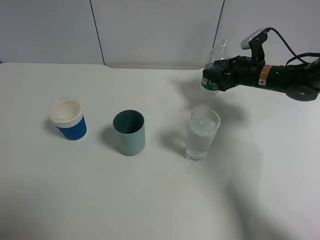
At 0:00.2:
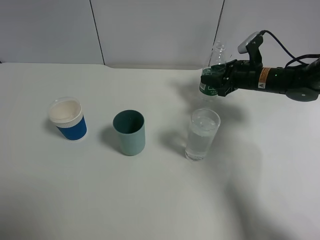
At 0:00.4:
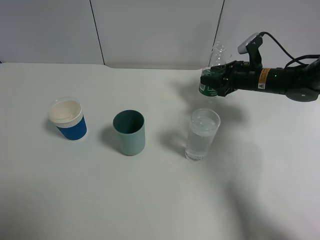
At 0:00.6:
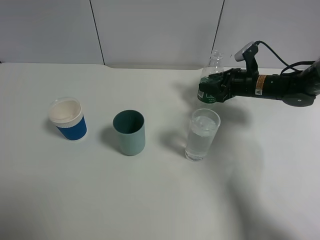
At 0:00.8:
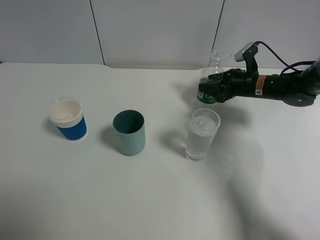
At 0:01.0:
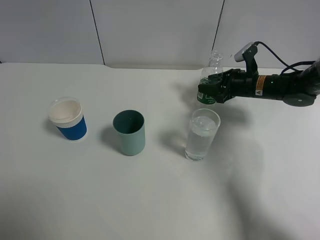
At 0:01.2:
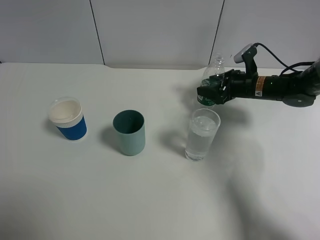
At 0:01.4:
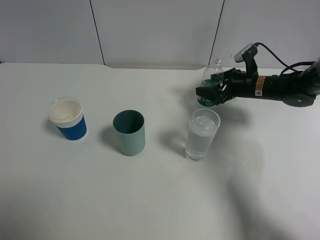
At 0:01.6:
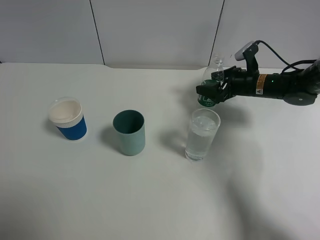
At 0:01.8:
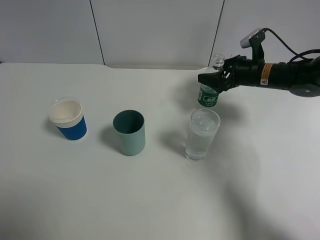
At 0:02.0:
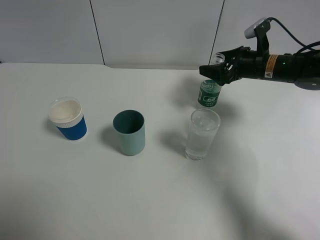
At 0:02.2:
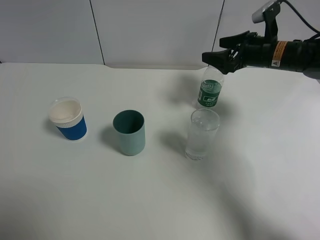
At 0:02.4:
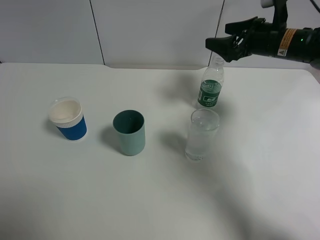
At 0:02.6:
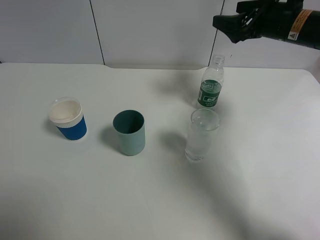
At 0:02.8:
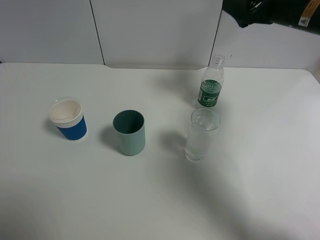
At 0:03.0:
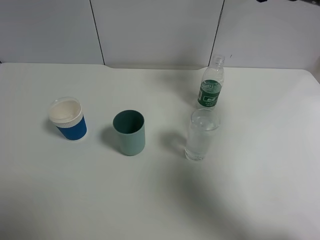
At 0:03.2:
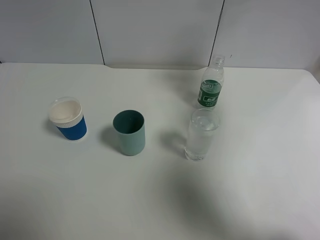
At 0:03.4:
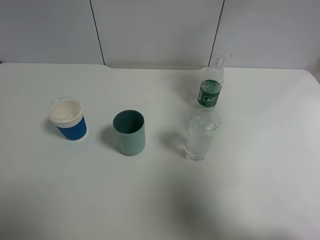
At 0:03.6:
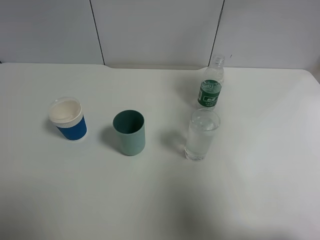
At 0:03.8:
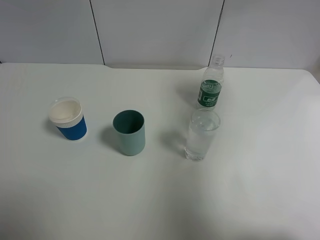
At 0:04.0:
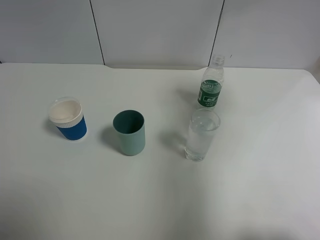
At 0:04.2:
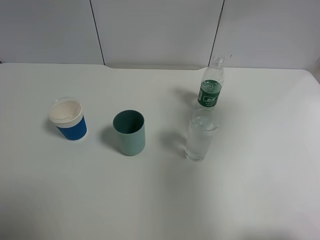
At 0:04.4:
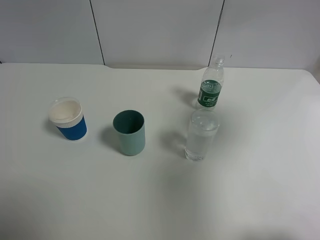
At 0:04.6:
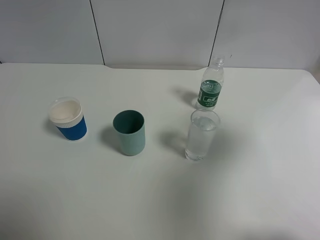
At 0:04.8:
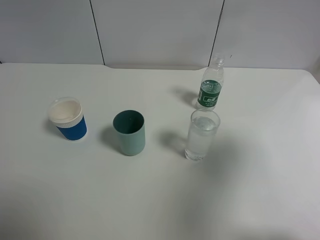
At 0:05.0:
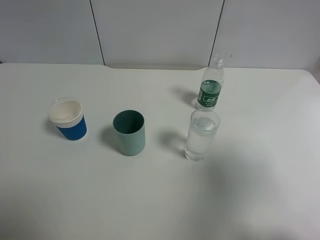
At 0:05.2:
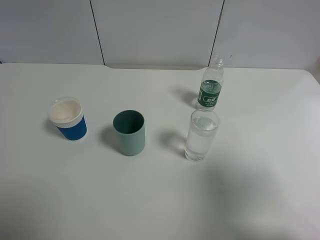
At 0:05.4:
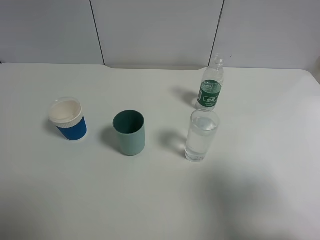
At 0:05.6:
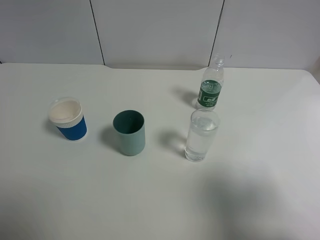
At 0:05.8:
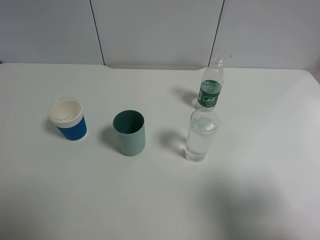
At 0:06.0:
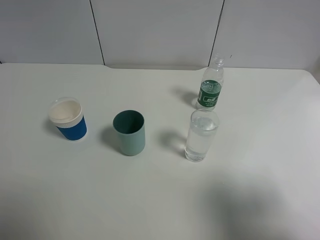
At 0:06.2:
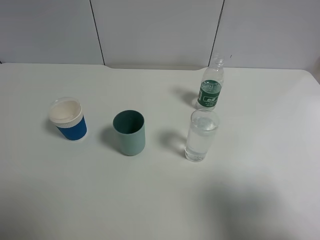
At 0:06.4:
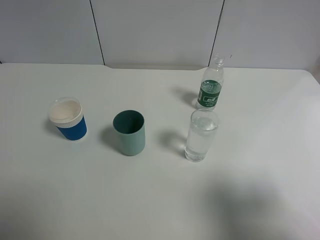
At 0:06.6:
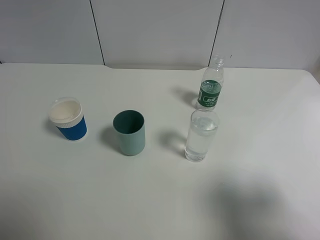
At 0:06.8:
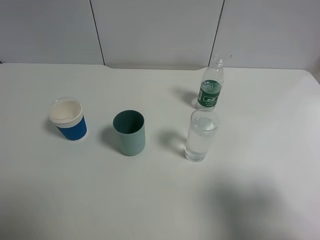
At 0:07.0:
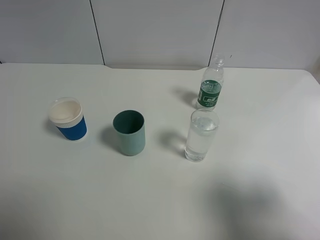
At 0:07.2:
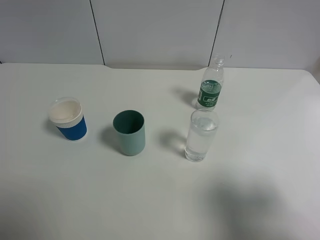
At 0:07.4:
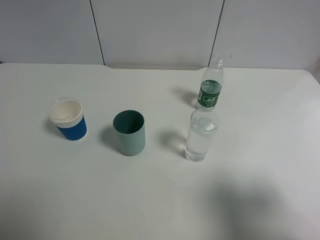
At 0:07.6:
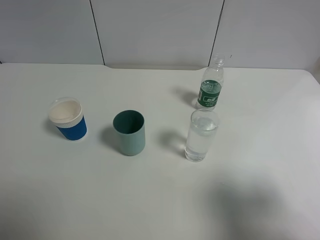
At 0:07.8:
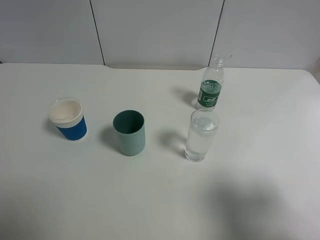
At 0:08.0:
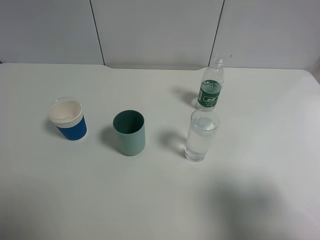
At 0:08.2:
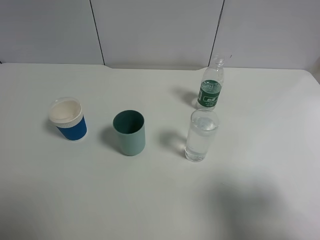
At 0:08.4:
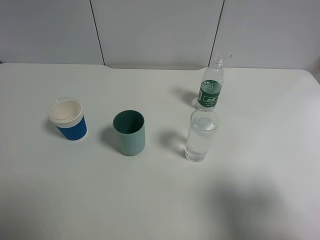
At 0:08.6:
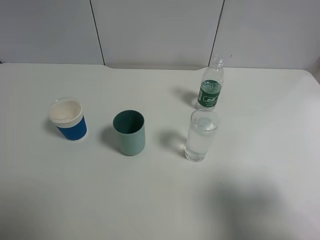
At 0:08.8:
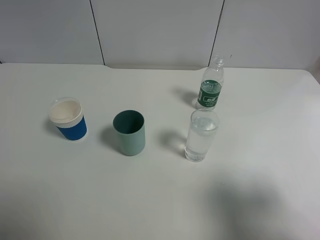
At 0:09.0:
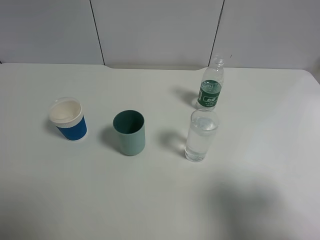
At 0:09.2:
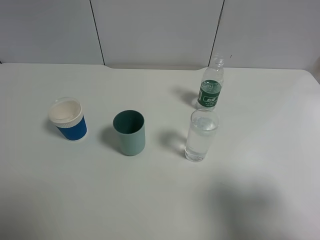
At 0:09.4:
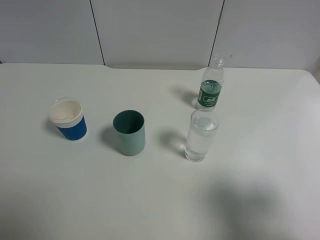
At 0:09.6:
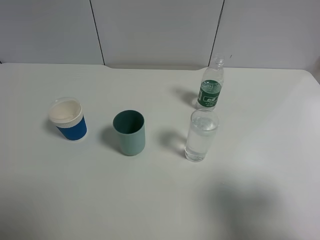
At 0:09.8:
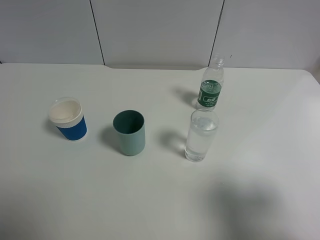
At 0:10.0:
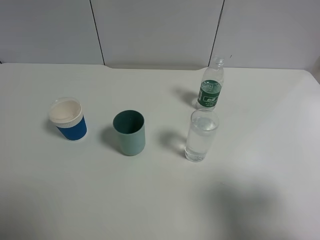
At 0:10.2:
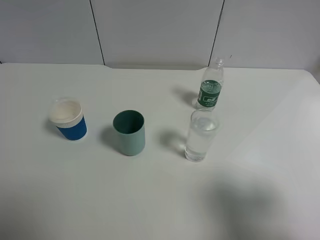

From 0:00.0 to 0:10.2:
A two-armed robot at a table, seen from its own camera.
Task of the whole recording: use a gripper to hold the bottle of the drink and pour it into a random cup.
From 0:00.0 to 0:01.4: The right gripper opens.
From 0:01.4 to 0:03.0: The right gripper heads upward, covering roughly 25 cm.
From 0:03.0 to 0:04.4: The right gripper goes some 20 cm backward.
From 0:04.4 to 0:05.8: The right gripper heads backward and downward, covering roughly 20 cm.
From 0:07.2 to 0:10.2: Both grippers stay about where they are.
